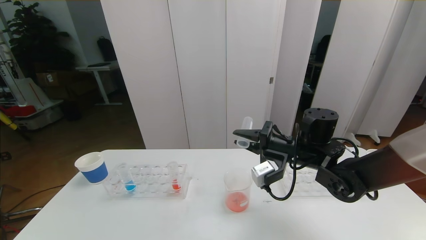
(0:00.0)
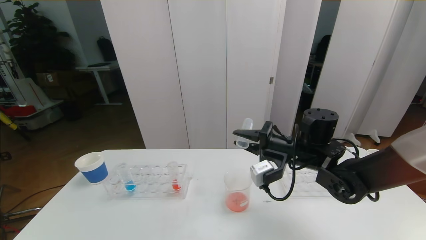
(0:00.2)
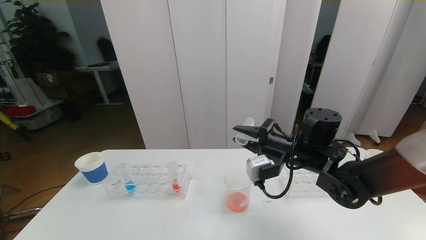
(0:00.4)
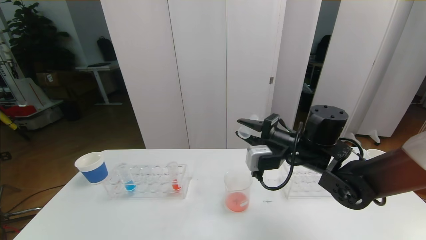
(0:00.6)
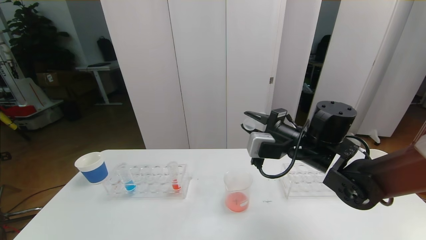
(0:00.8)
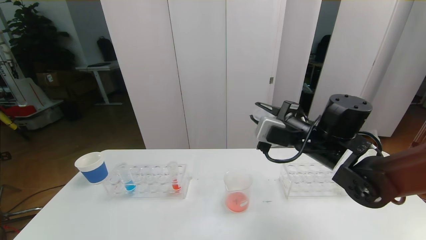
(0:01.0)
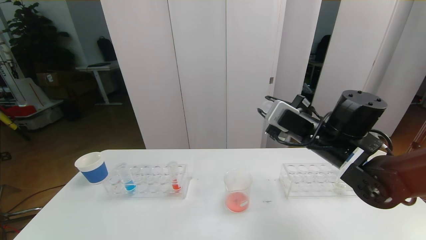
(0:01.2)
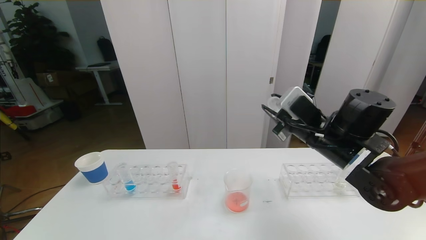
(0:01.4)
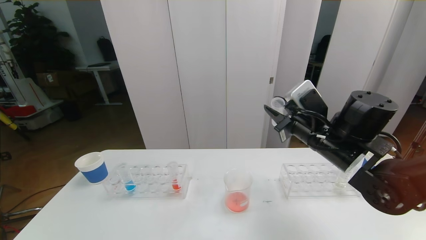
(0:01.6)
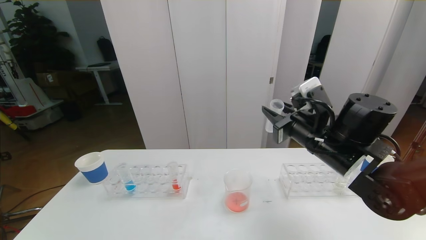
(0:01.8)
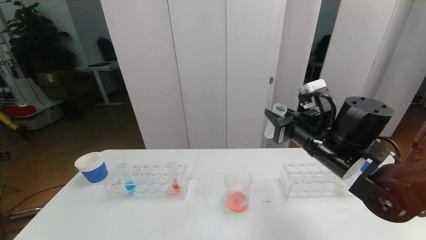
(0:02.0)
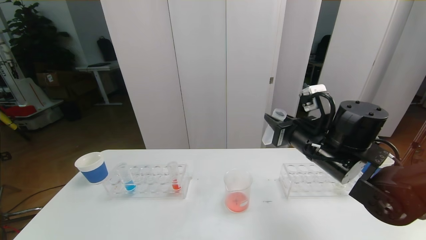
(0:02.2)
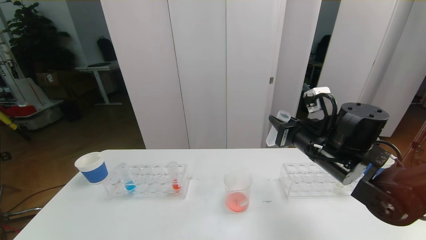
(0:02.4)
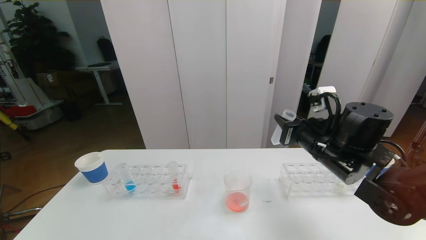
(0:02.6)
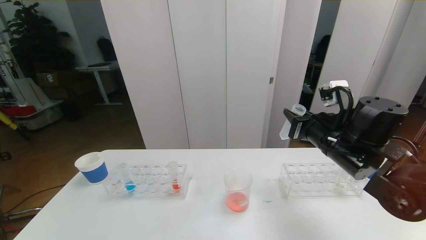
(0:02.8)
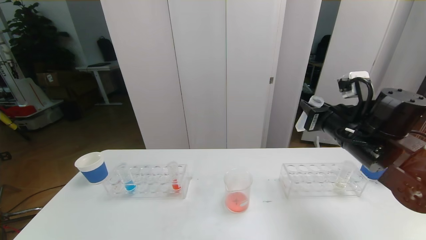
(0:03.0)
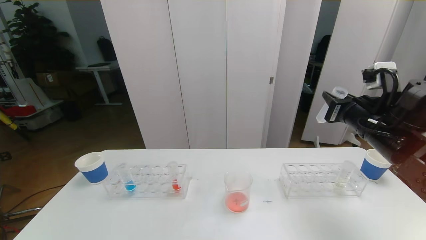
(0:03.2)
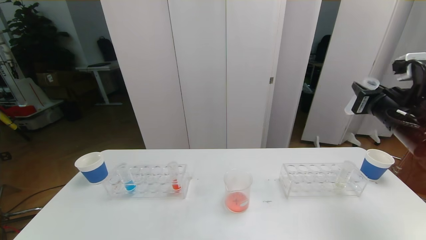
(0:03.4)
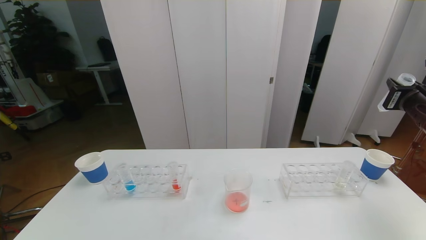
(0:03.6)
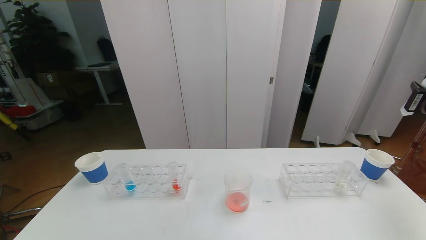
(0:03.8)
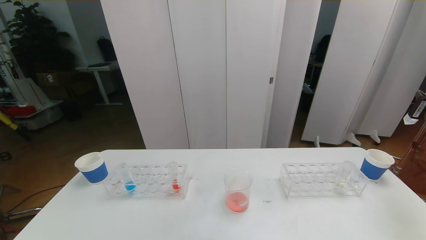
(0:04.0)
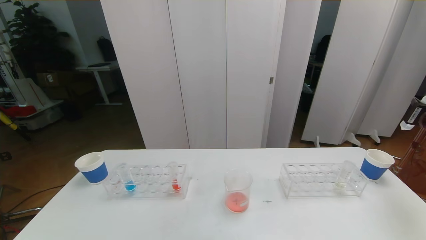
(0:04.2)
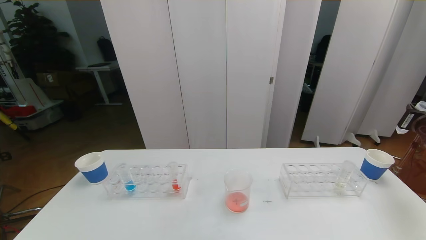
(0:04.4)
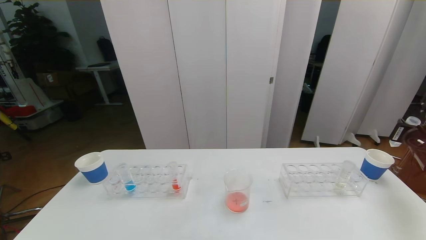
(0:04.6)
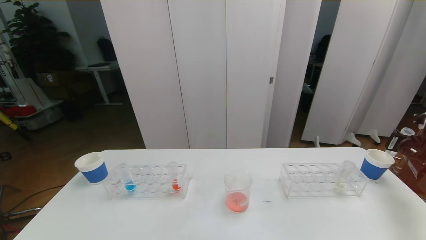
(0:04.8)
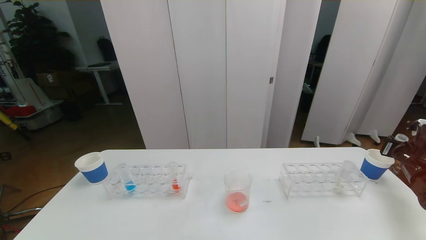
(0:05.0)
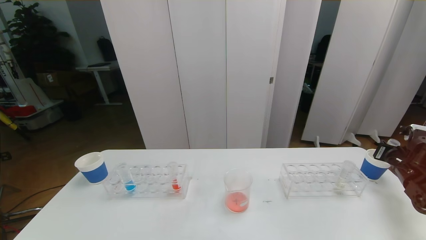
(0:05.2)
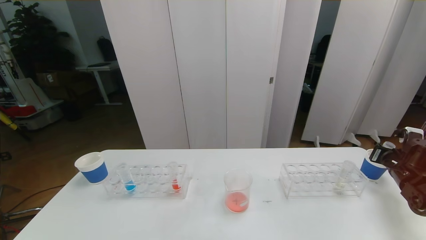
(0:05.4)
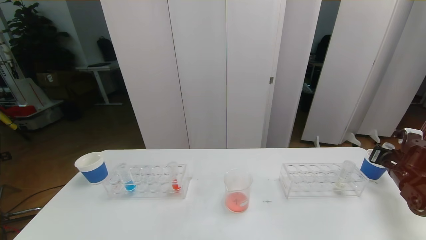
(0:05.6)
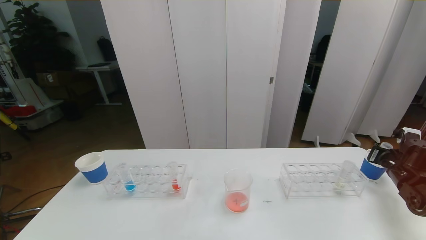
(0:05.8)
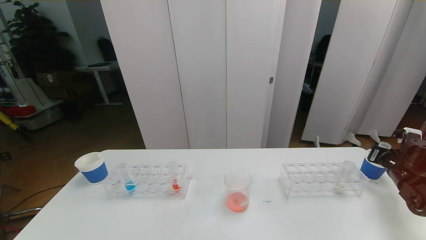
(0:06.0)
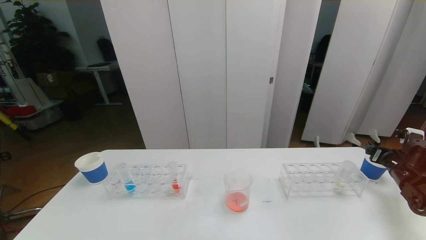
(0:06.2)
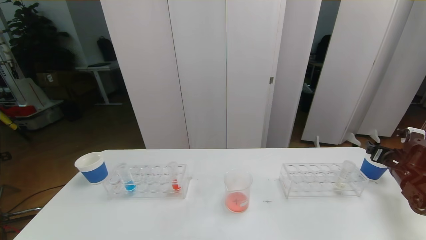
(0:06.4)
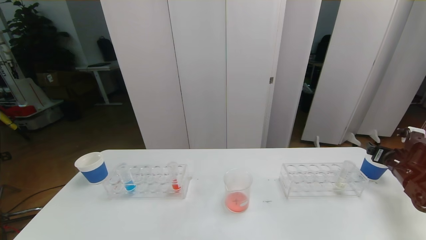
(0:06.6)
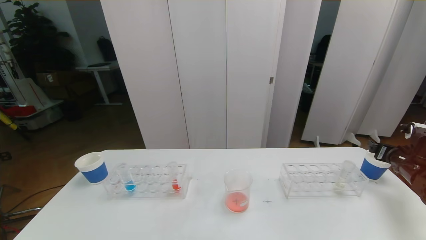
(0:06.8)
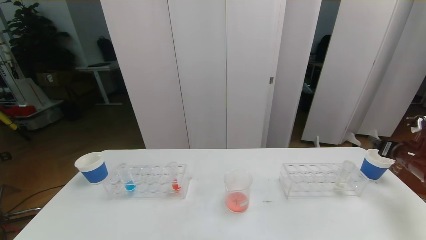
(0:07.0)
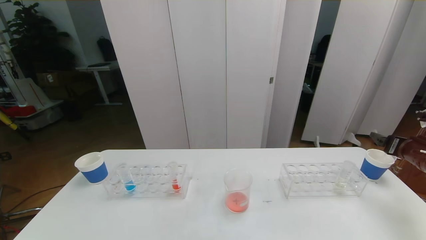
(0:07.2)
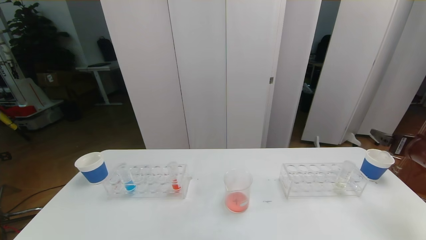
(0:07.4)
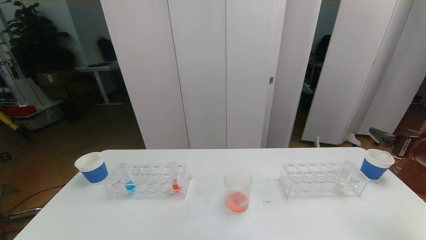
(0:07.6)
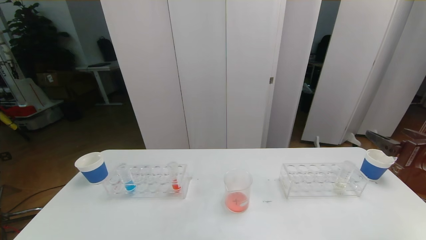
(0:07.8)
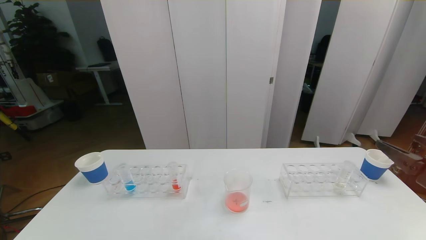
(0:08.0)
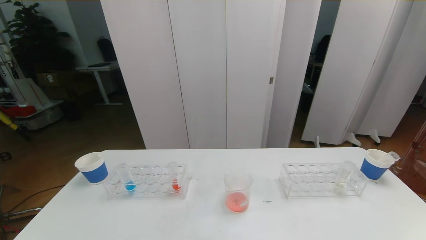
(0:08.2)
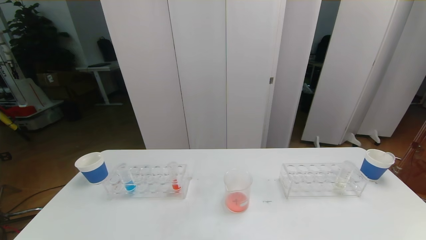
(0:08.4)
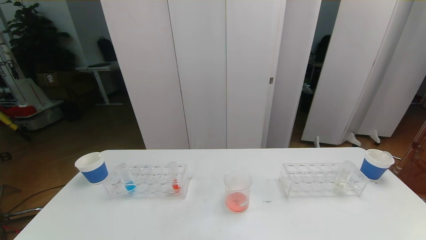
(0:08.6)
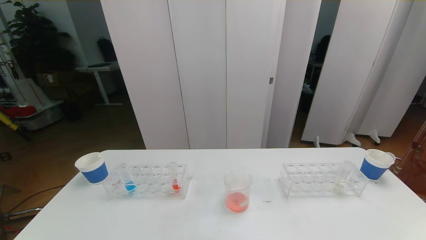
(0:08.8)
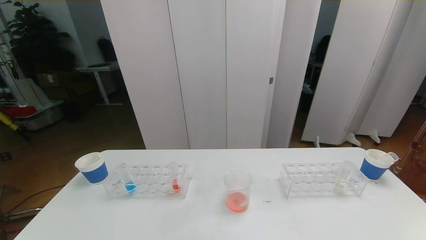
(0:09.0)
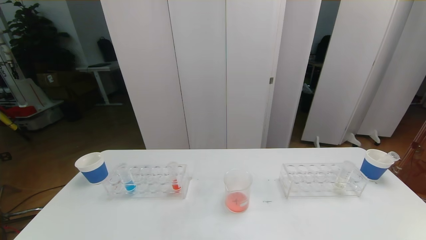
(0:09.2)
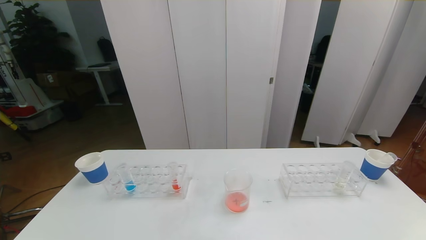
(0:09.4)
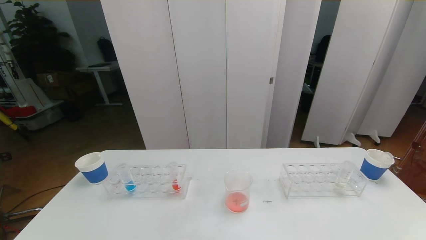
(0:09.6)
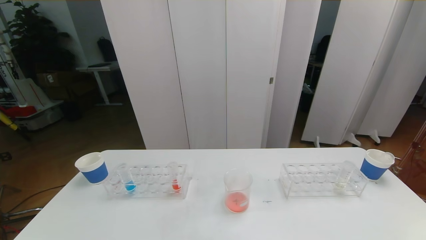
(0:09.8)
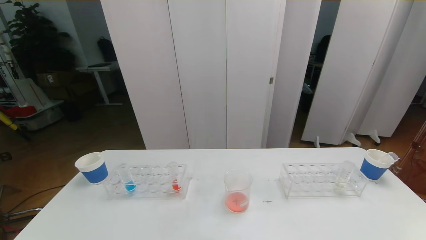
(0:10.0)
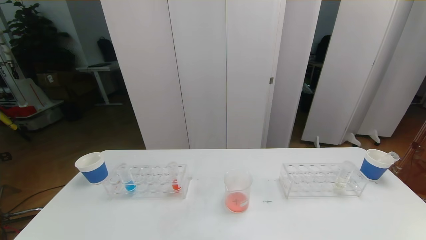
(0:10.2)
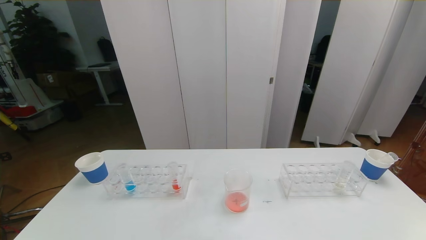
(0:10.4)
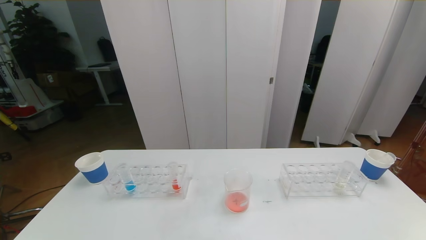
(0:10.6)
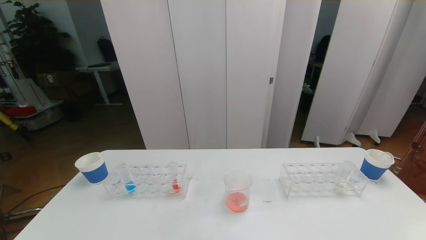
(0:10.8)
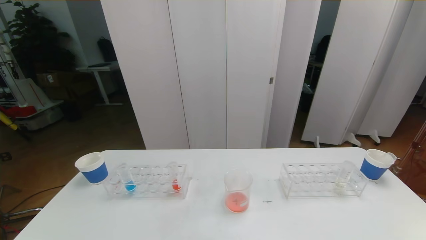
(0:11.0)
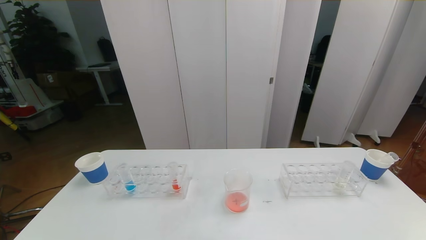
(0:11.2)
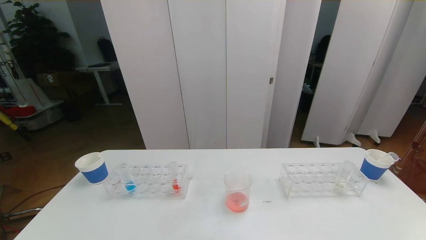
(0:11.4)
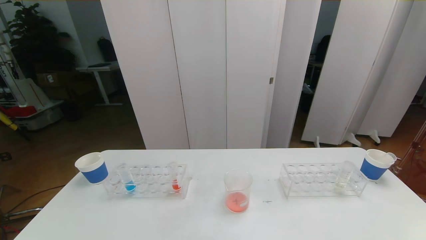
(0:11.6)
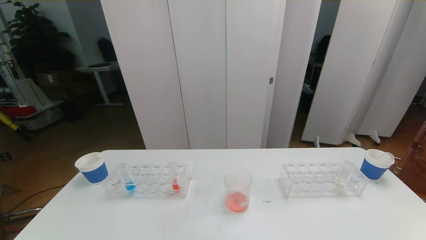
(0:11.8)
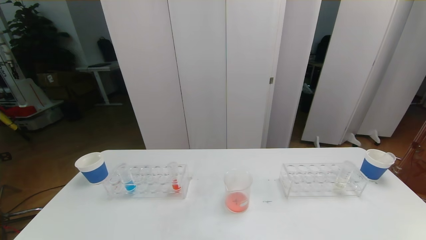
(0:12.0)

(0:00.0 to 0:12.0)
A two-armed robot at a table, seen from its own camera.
Task of the whole recording: pick up the test tube with red pigment the test tube with blue pigment and the test tube with white pigment by grippers and pour them into the beaker.
Step, 0:00.0 - 0:08.8: Pour the red reagent into the graduated cylinder and place the test tube into the paper cup.
0:00.0 - 0:01.6: The right gripper is displaced upward by approximately 5 cm.
0:01.6 - 0:03.0: The right gripper is displaced to the right by roughly 5 cm.
0:03.0 - 0:04.4: The right gripper travels to the right by about 20 cm.
0:04.4 - 0:06.0: The right gripper is displaced downward by roughly 10 cm.
0:06.0 - 0:07.6: The right gripper heads upward, backward and to the left, covering roughly 20 cm, and opens up.
0:10.4 - 0:12.0: Neither gripper changes place.

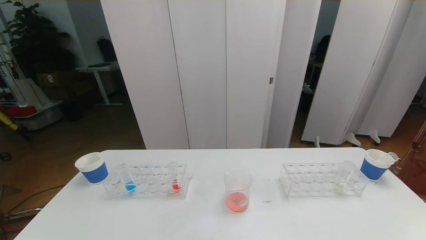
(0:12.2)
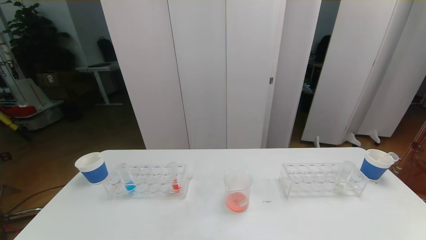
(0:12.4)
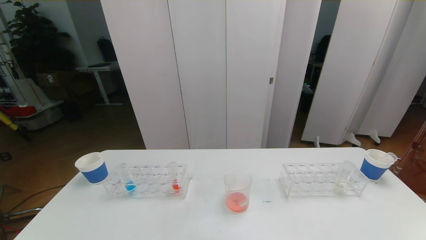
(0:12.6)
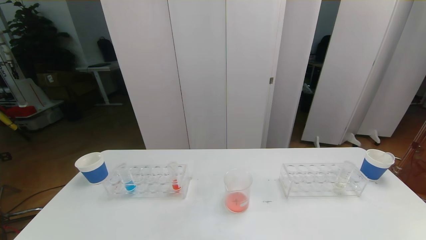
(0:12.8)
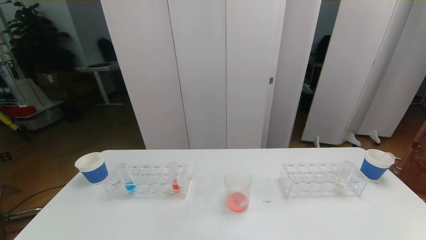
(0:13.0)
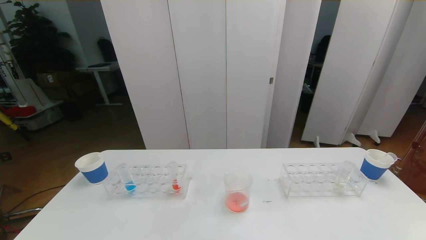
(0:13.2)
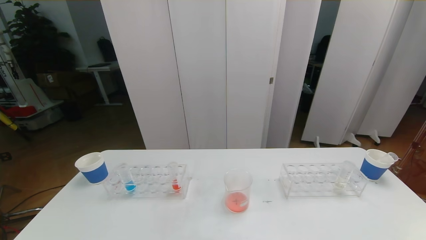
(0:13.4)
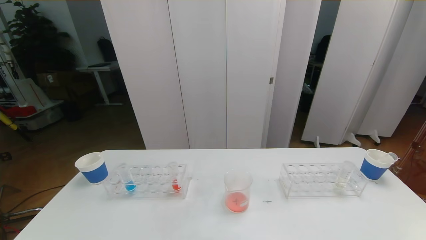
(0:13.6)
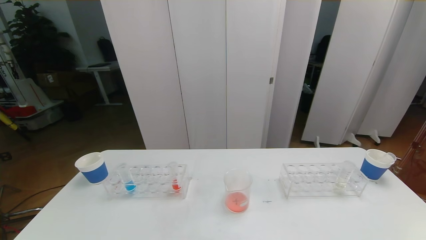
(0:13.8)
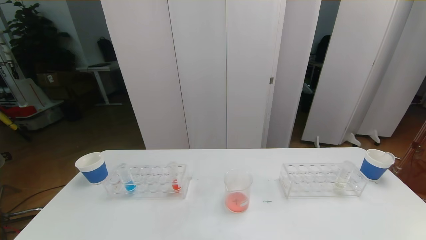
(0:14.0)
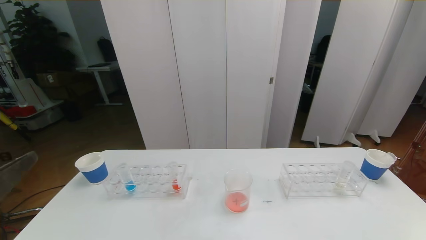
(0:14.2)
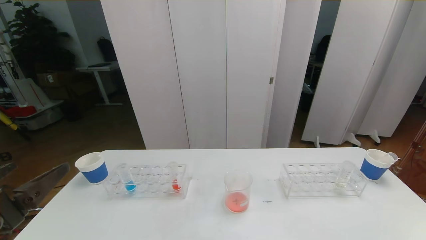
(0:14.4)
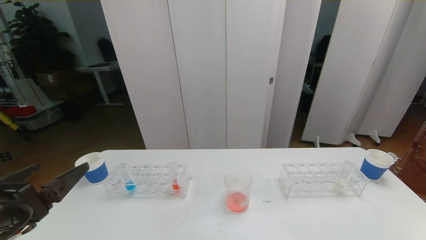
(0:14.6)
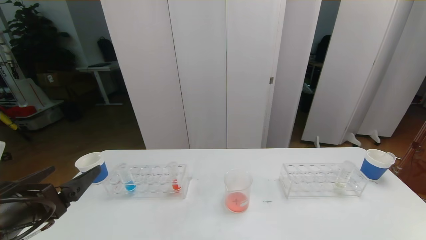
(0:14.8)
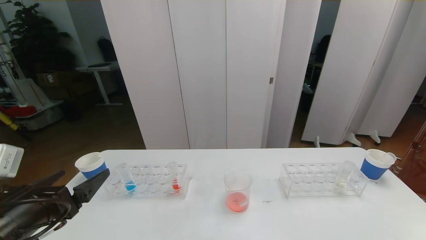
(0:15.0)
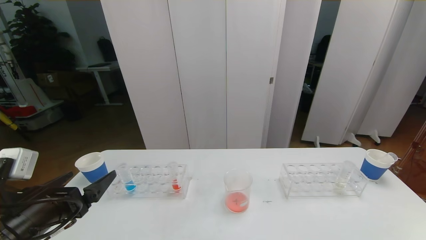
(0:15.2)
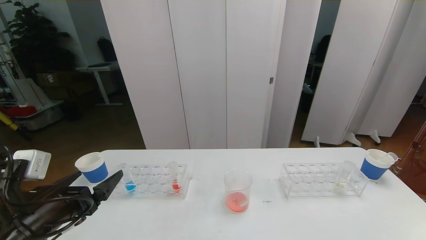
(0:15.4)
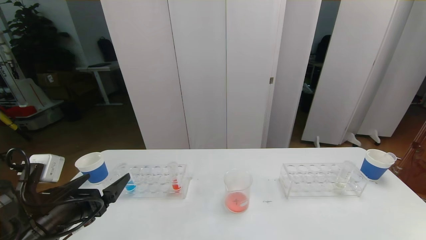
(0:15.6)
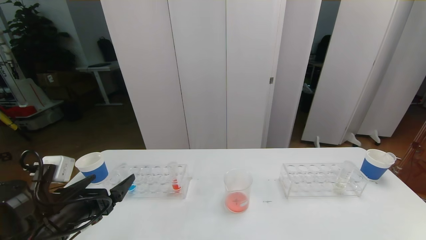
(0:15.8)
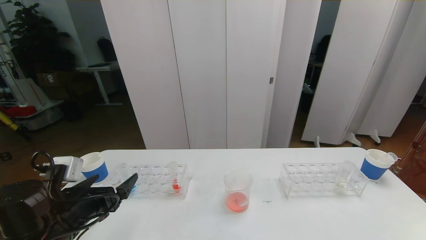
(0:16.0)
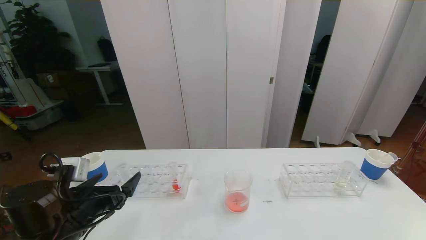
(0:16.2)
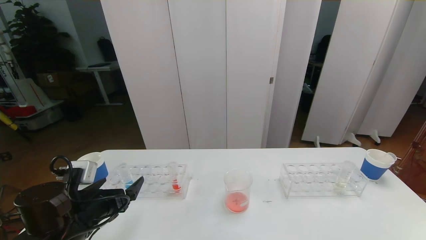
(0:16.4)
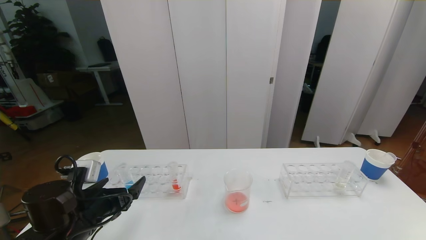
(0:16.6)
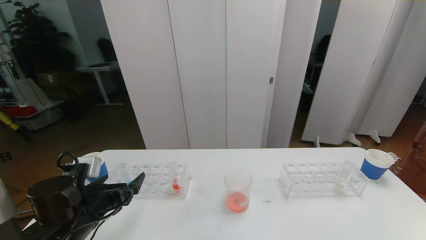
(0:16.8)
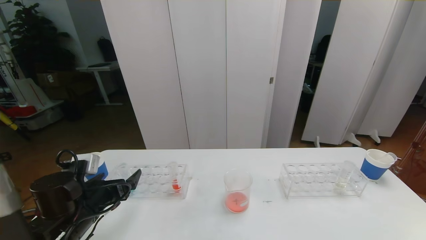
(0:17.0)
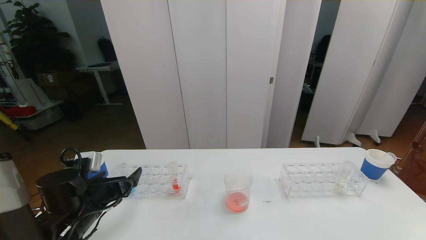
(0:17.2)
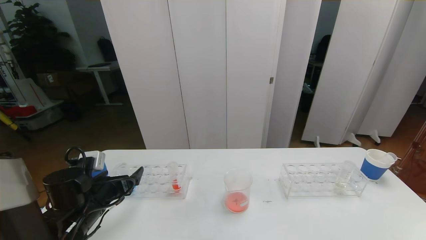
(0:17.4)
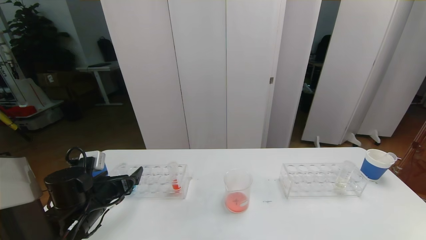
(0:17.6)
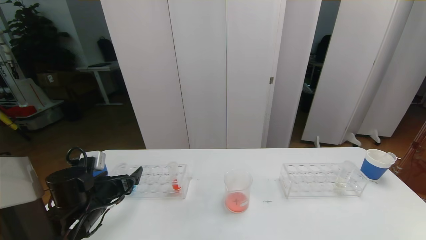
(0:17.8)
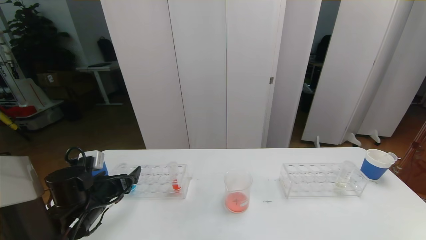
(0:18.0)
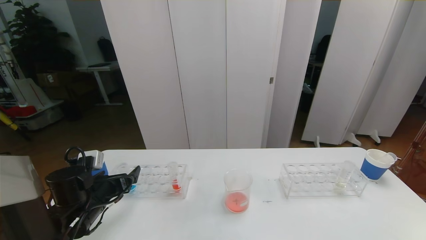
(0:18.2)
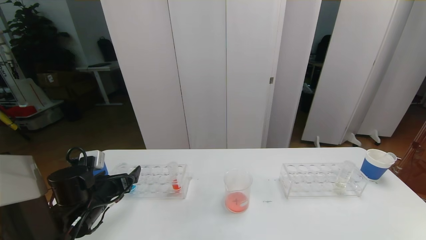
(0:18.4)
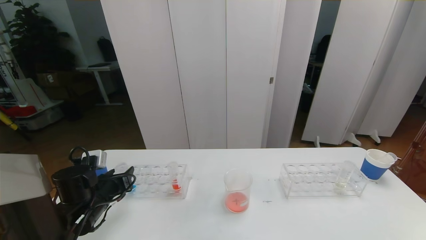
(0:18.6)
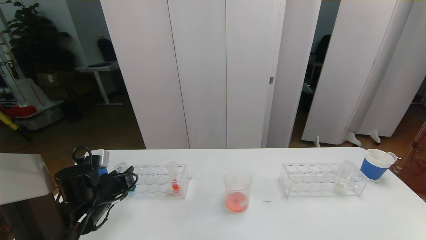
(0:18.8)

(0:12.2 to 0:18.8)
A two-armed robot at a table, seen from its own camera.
Task of the whole recording: pick up the test tube with red pigment the test tube with blue pigment and the test tube with white pigment by grippers and pour them into the beaker.
0:13.8 - 0:15.4: The left gripper is displaced forward and downward by about 20 cm.
0:15.4 - 0:17.2: The left gripper heads forward and downward, covering about 10 cm.
0:17.2 - 0:18.8: The left gripper closes up.
